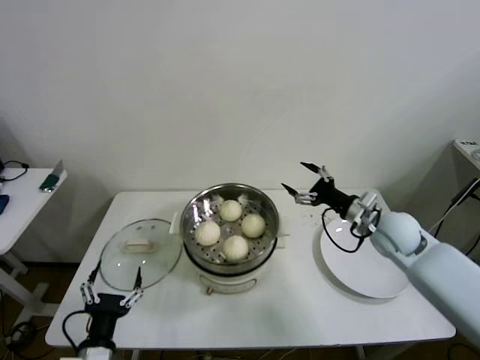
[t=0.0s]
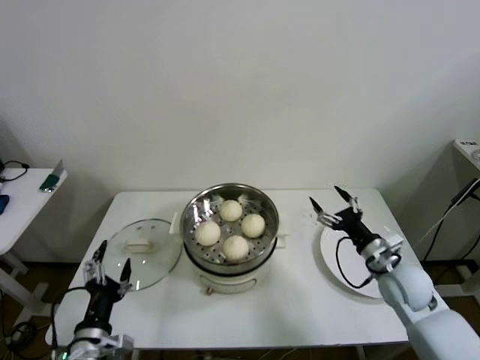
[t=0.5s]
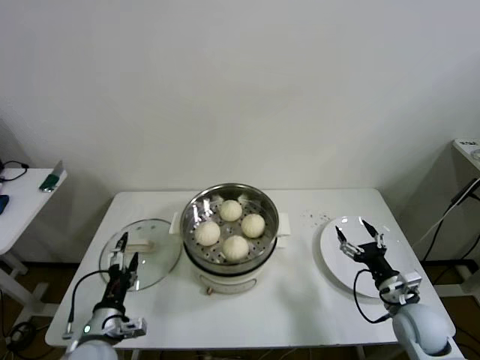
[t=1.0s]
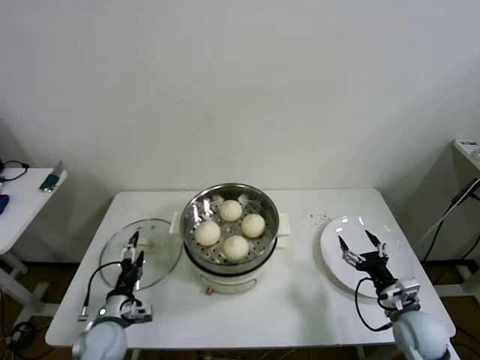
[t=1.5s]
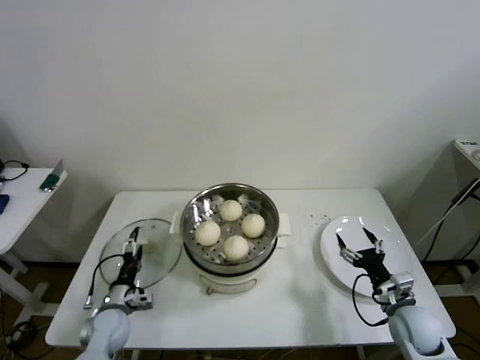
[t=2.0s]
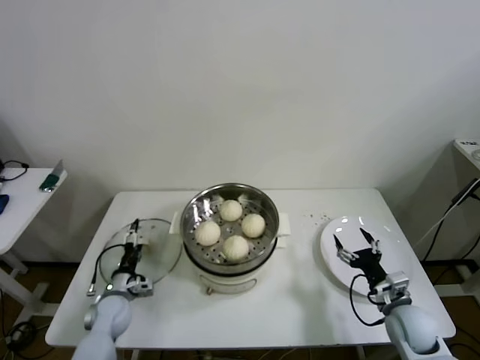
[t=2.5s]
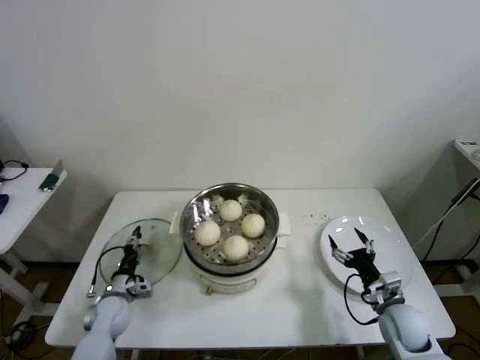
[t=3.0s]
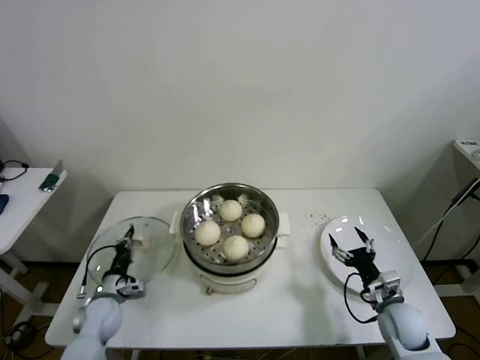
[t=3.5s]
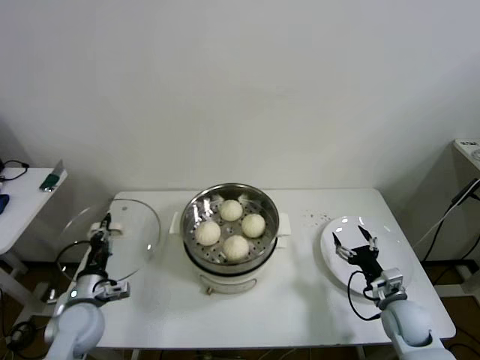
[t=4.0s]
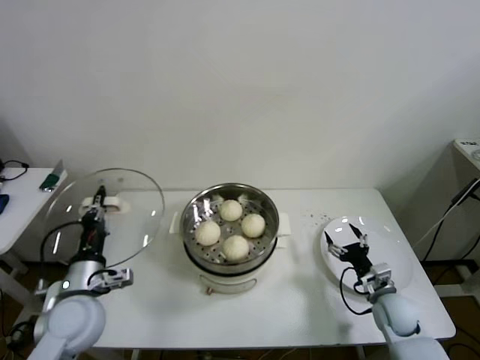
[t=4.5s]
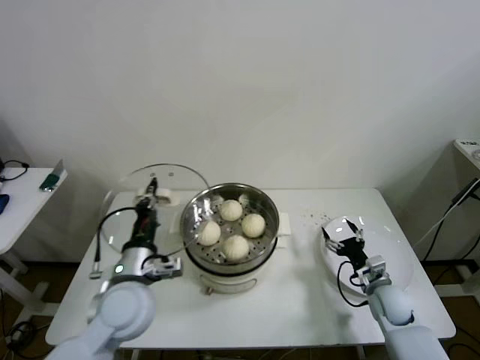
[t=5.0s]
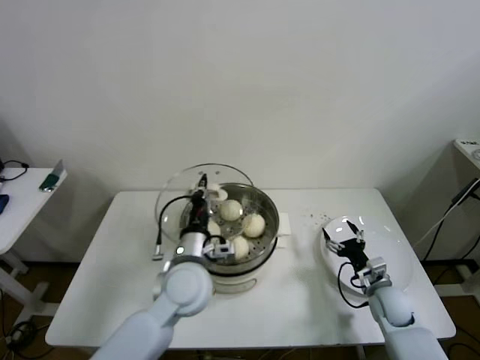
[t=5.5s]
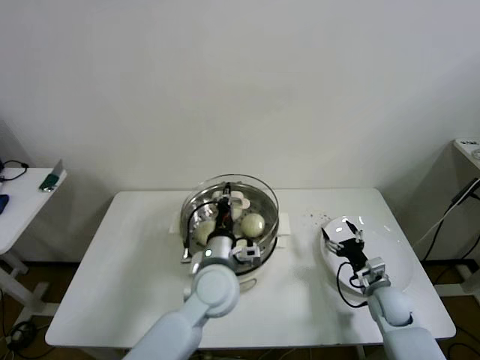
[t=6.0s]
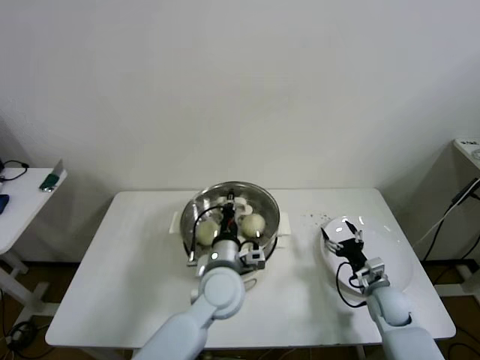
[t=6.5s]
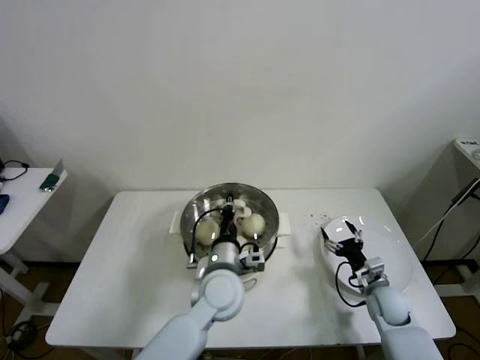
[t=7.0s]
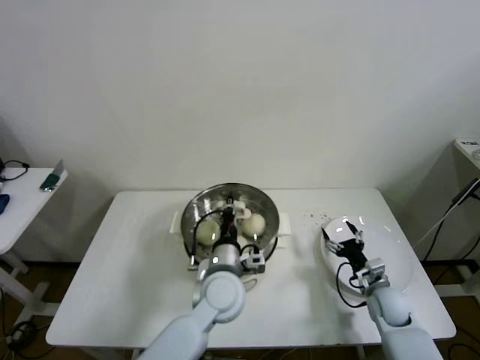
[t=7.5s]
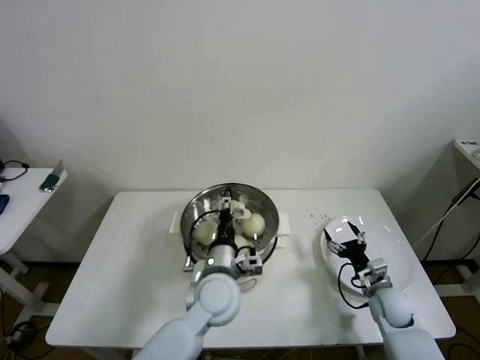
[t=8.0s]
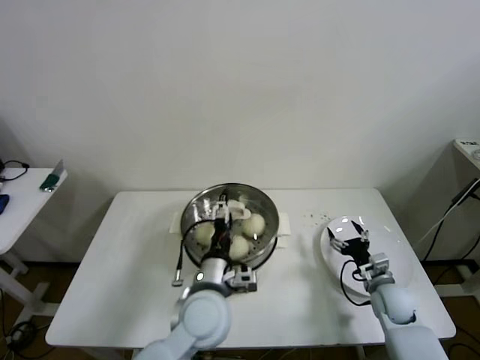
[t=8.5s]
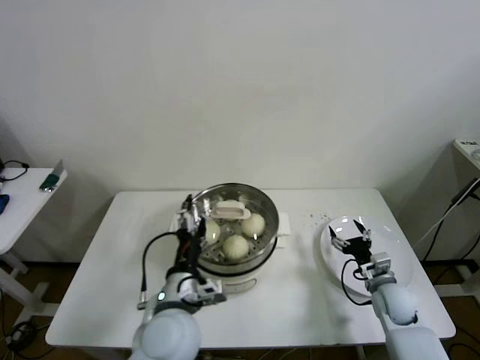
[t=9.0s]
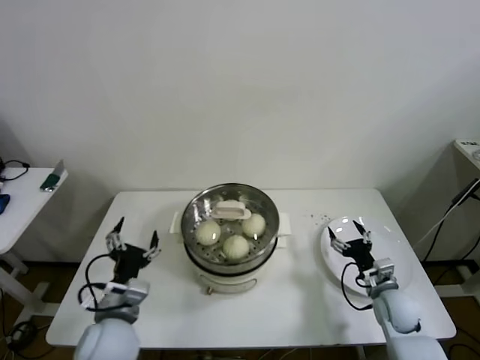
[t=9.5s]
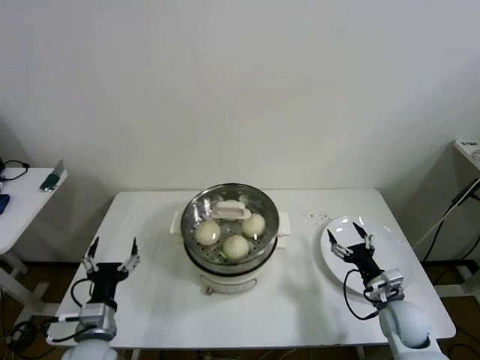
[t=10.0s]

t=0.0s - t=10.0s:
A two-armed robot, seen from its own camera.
Step, t=0.0s - t=3.0s: Grasp the pot lid with left gripper.
Step, t=3.5s - t=8.5s: Place the pot lid on the steamer with left gripper.
t=0.0s - t=2.0s: The right gripper is displaced downward and backward by about 20 cm; the left gripper moves forward and downward, about 20 cm.
t=2.0s - t=4.0s: The left gripper heads upward, covering some 5 cm, and closes up.
t=4.0s - t=6.0s: The right gripper shifts by approximately 5 cm; the left gripper goes roughly 30 cm to the right.
t=6.0s - t=8.0s: The left gripper opens up.
t=8.0s - t=10.0s: The right gripper ends up some 5 cm from where it was. The left gripper shifts approximately 25 cm to the left and backward, and opens.

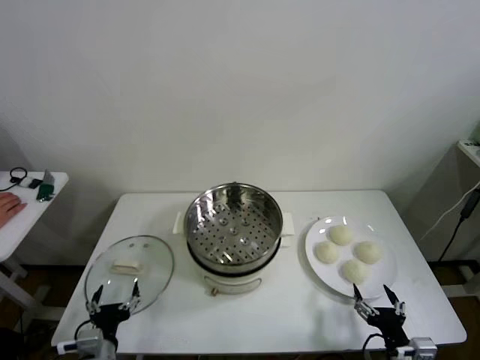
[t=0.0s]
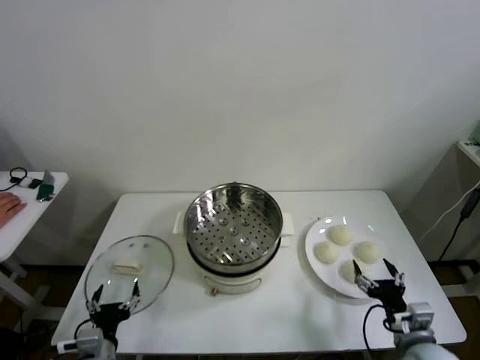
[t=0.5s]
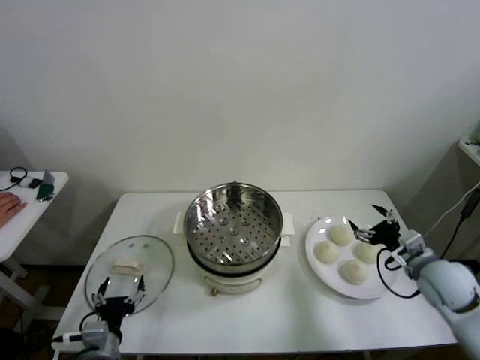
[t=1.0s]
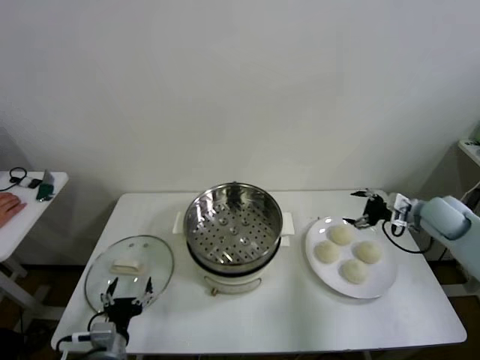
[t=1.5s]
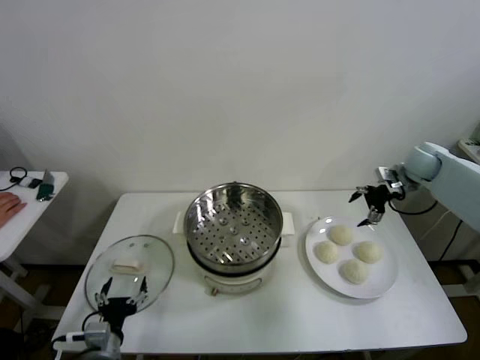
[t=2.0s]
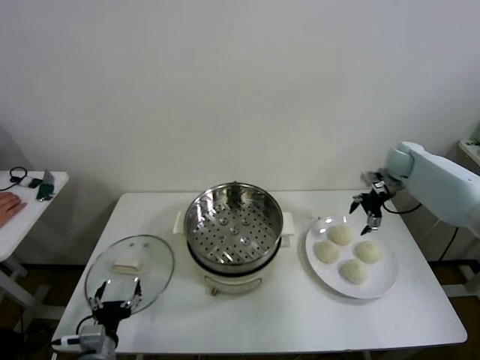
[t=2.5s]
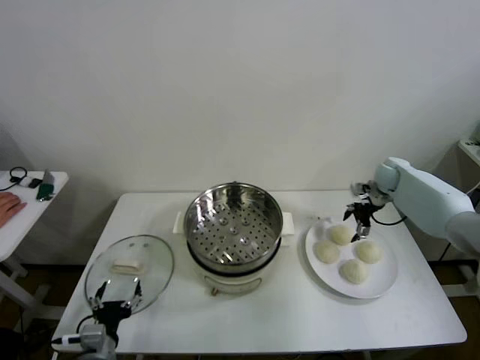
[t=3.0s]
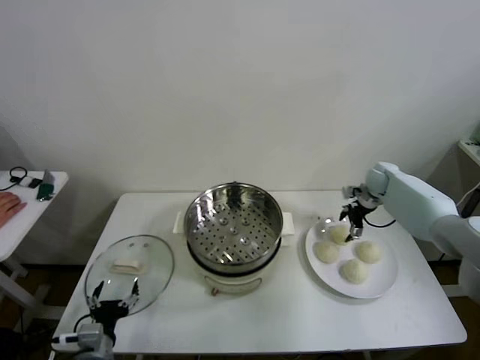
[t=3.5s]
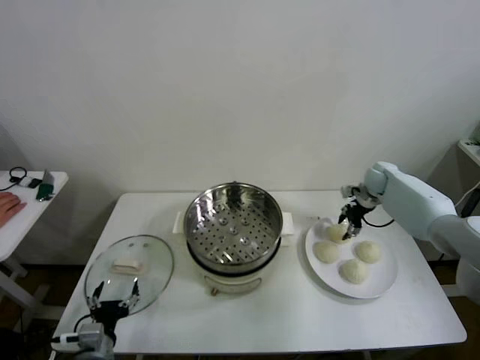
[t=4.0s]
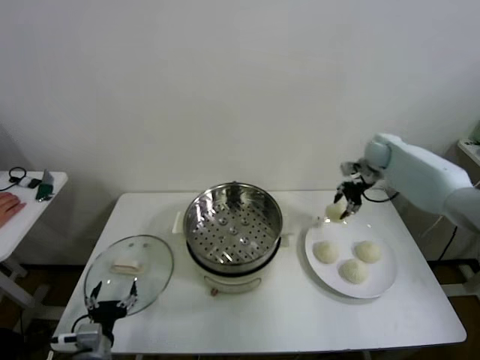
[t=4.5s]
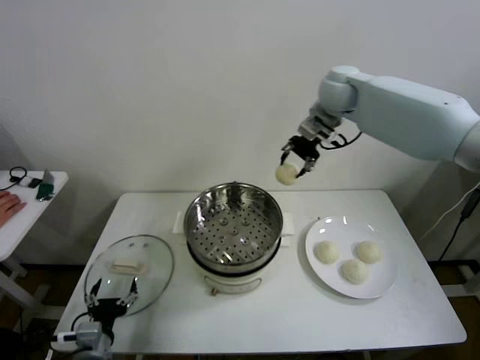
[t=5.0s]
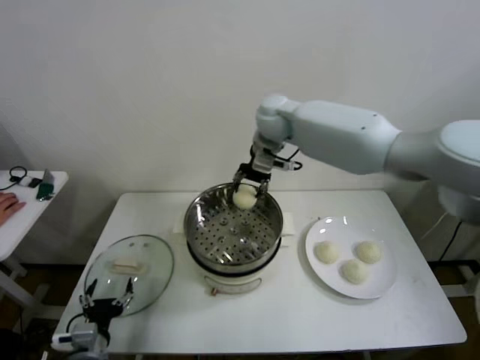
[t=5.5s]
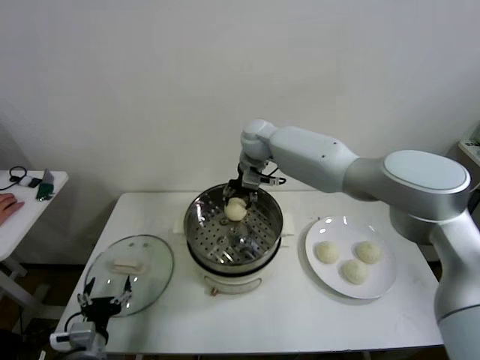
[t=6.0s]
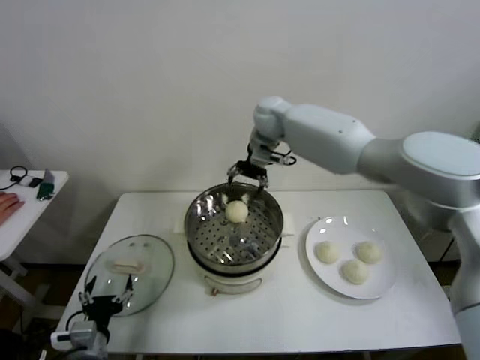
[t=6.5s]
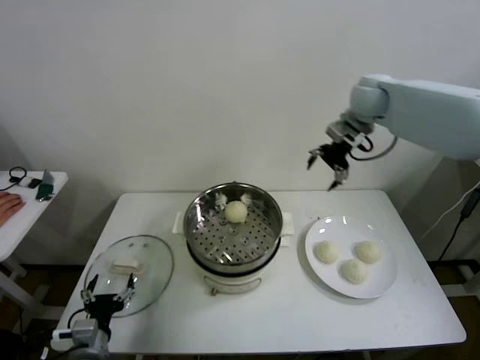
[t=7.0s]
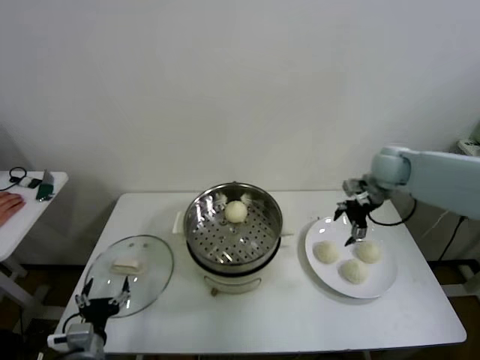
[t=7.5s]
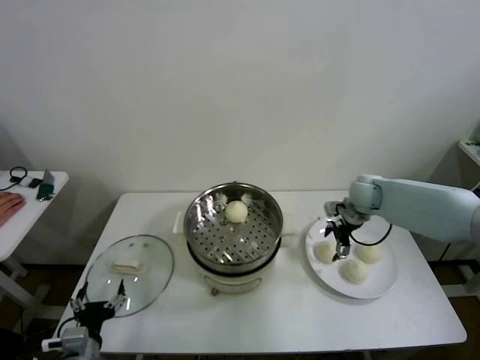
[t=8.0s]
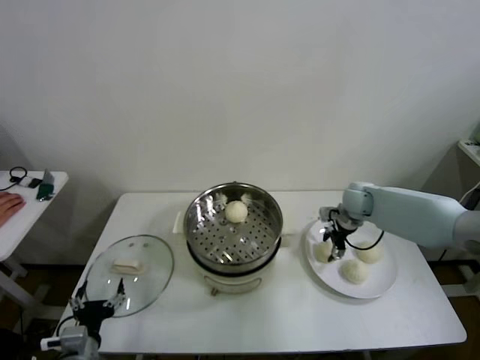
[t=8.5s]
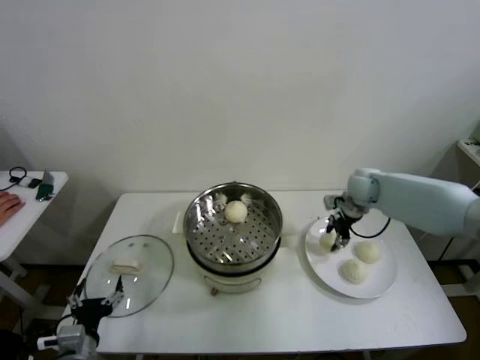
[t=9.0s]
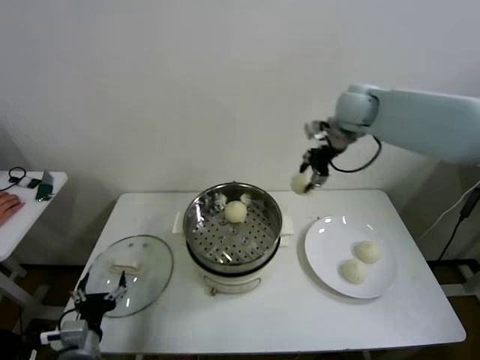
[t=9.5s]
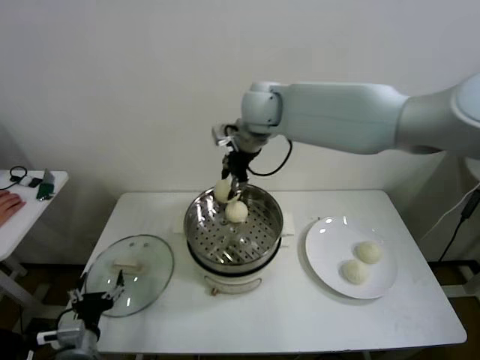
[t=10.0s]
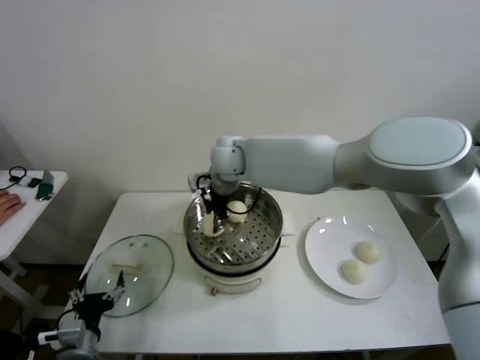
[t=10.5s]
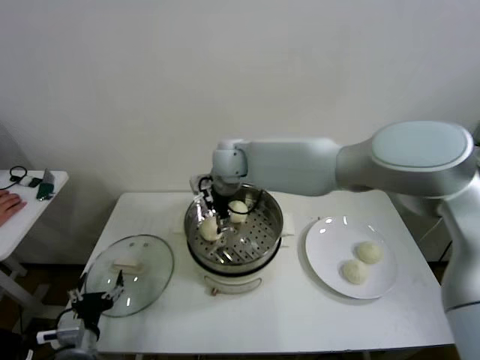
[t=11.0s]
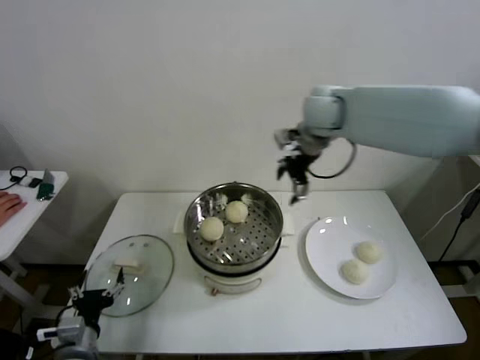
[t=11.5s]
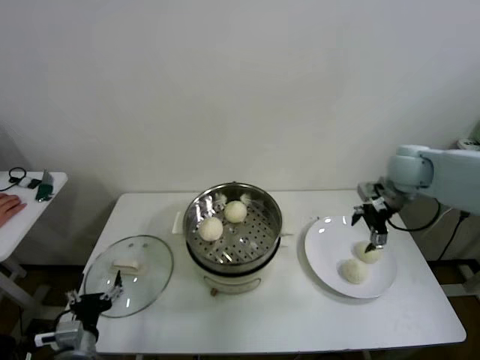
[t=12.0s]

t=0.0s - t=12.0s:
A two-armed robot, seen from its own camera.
Step, t=0.0s - t=3.5s: Grasp the baozi in the plate with right gripper.
Step, t=4.0s - t=6.0s: Place the baozi on the steamer with right gripper.
Step, t=6.5s - t=8.5s: Grasp the baozi in the plate with right gripper.
Step, t=9.0s - t=10.5s: Place the baozi on the steamer with right gripper.
t=2.0s - t=4.0s: The right gripper travels downward and to the left by roughly 10 cm, and closes its fingers.
t=4.0s - t=6.0s: The right gripper heads to the left, covering about 35 cm.
t=6.0s - t=8.0s: The right gripper is displaced to the right and downward by approximately 30 cm, and opens.
t=8.0s - t=10.0s: The right gripper moves to the left and upward, approximately 35 cm, and closes its fingers.
t=10.0s - t=12.0s: The right gripper moves to the right, about 35 cm, and opens its fingers.

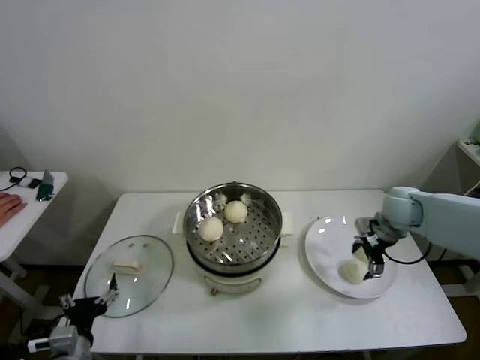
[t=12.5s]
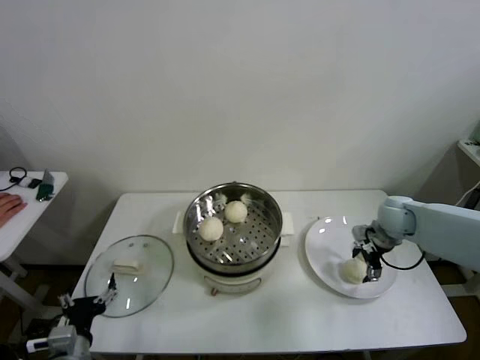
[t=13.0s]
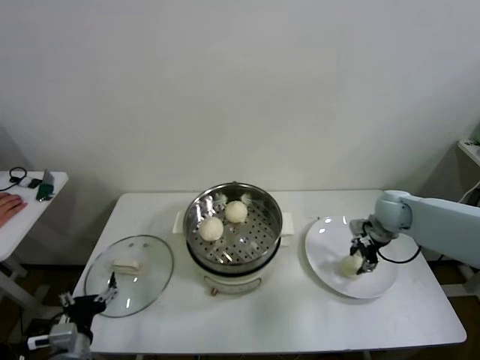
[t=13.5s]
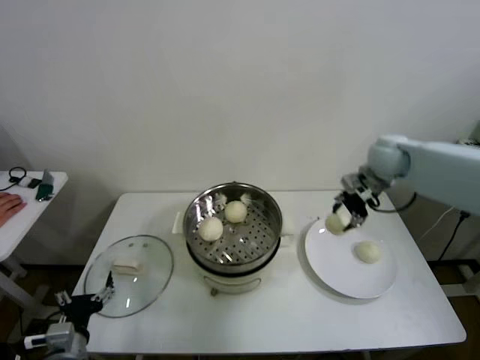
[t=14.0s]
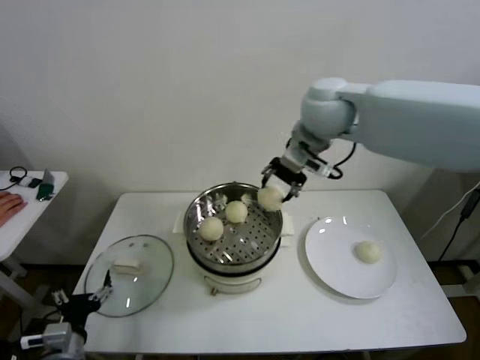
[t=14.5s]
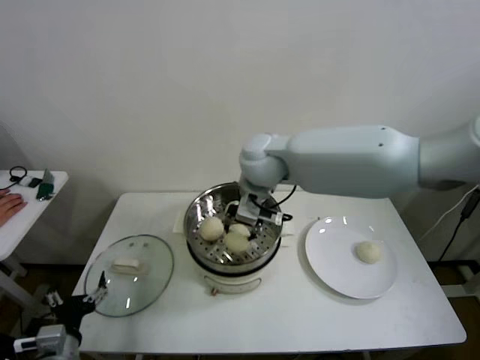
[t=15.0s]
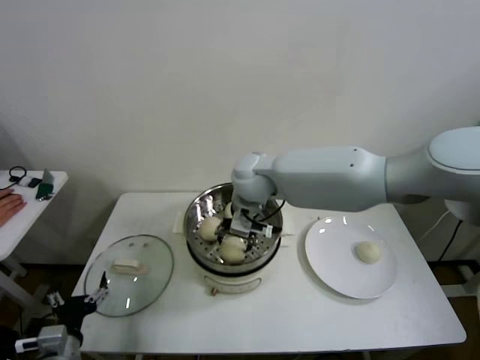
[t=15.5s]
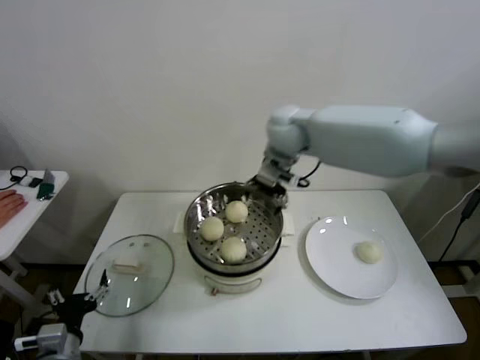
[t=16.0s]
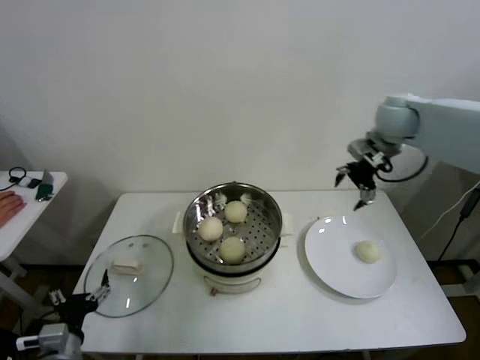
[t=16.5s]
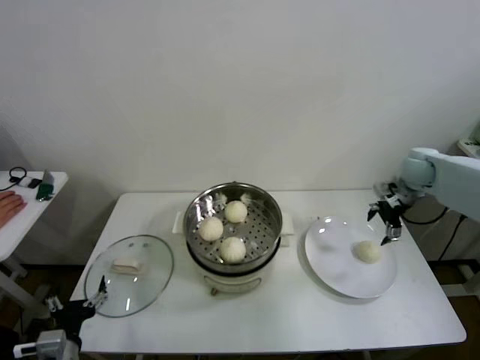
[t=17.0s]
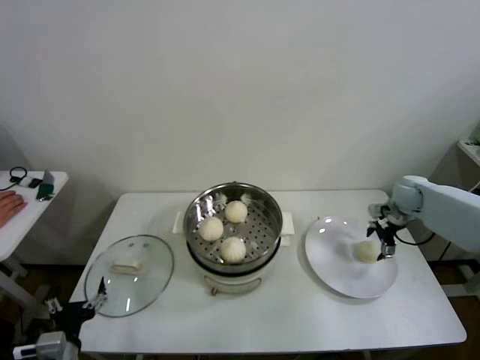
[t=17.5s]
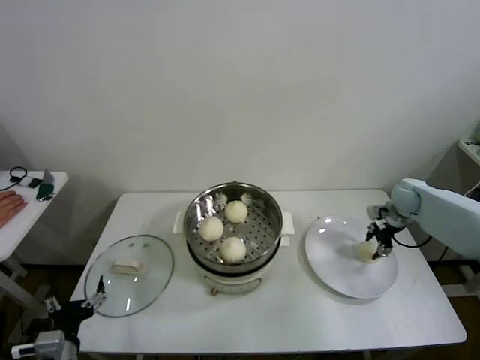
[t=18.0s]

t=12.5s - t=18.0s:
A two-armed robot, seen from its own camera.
Step, t=13.5s - t=15.5s: Place the baozi on the steamer with right gripper.
Step, t=16.0s - t=18.0s: Grasp the baozi in the plate with right gripper.
t=12.5s - t=14.5s: The right gripper heads upward and to the left, covering roughly 35 cm, and closes.
t=14.5s - t=16.0s: The right gripper travels forward and downward by approximately 10 cm, and opens up.
t=16.0s - t=18.0s: The right gripper heads to the right and downward, covering roughly 40 cm, and closes its fingers.
